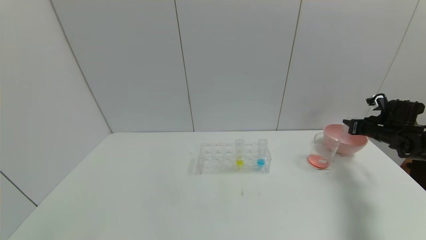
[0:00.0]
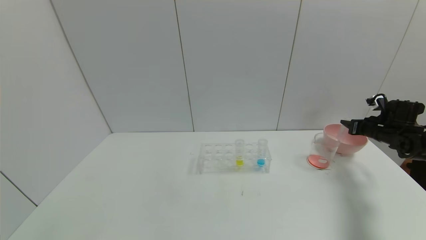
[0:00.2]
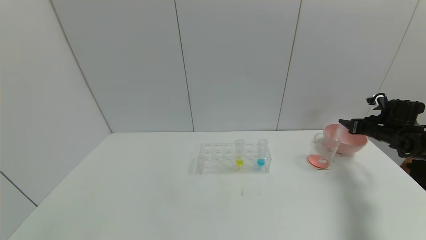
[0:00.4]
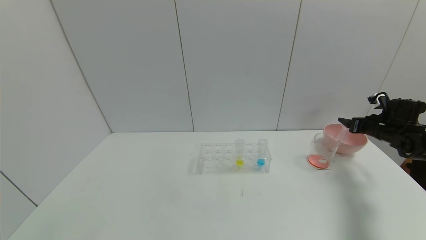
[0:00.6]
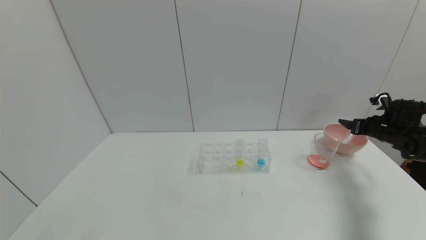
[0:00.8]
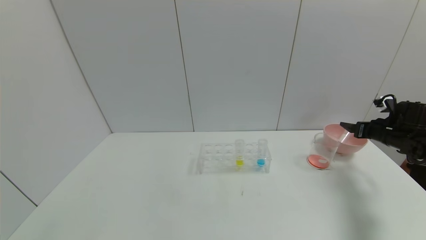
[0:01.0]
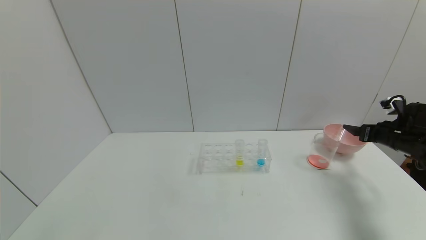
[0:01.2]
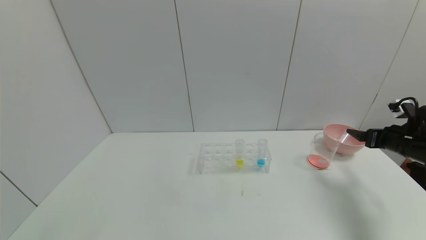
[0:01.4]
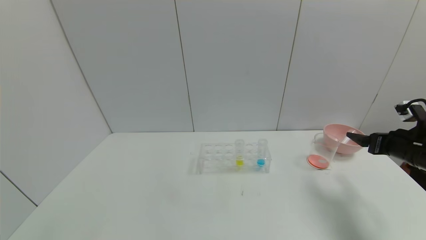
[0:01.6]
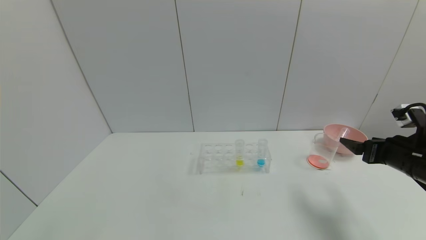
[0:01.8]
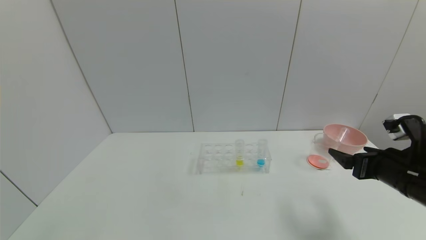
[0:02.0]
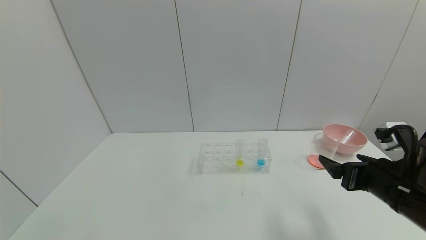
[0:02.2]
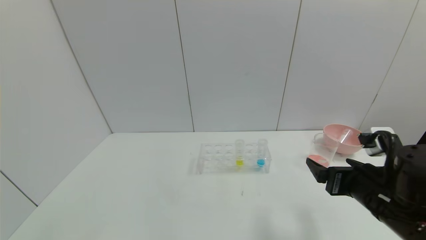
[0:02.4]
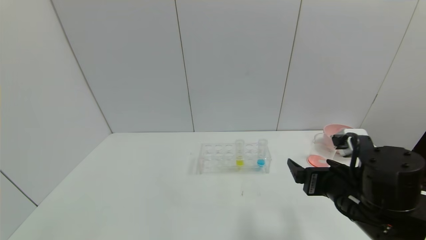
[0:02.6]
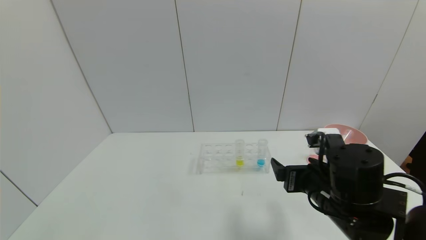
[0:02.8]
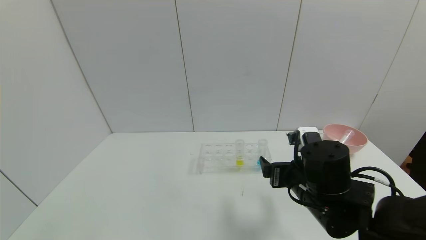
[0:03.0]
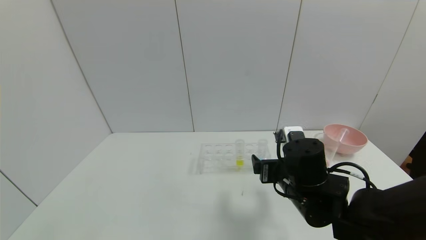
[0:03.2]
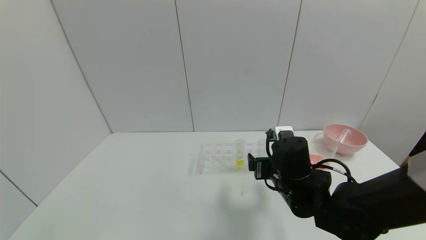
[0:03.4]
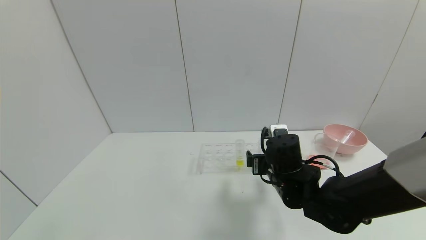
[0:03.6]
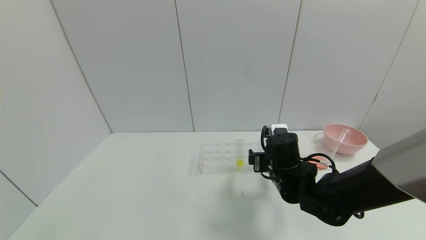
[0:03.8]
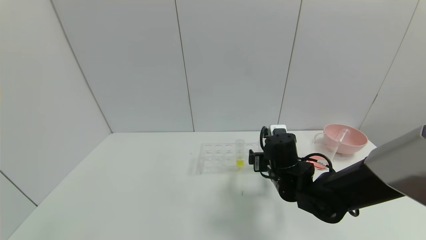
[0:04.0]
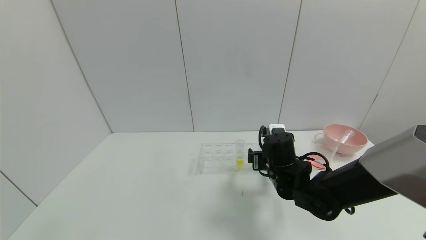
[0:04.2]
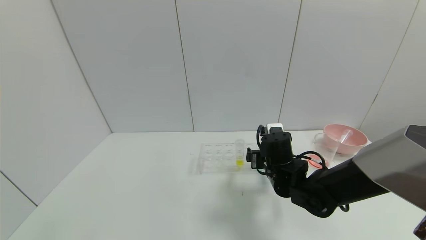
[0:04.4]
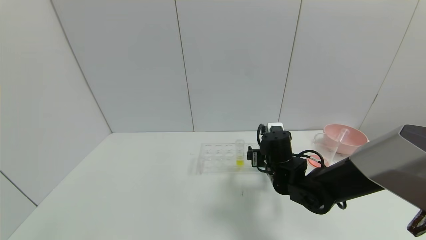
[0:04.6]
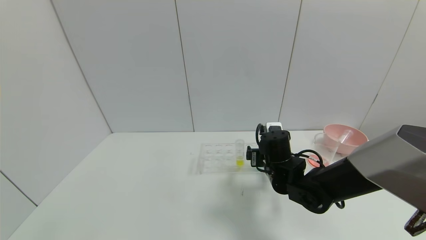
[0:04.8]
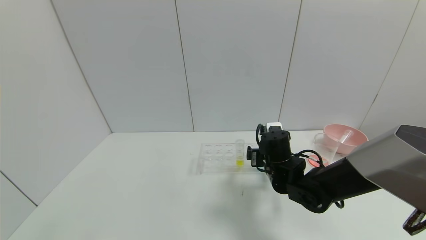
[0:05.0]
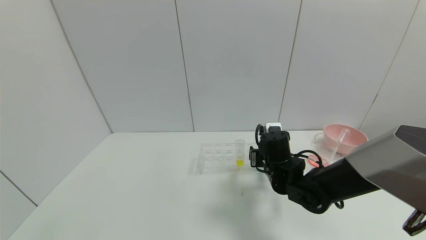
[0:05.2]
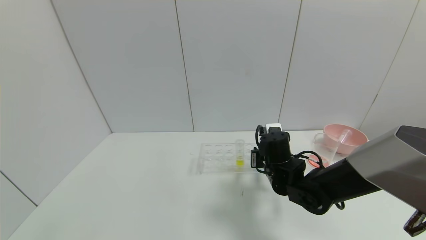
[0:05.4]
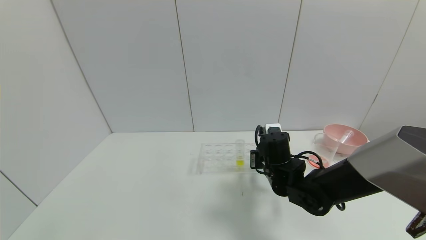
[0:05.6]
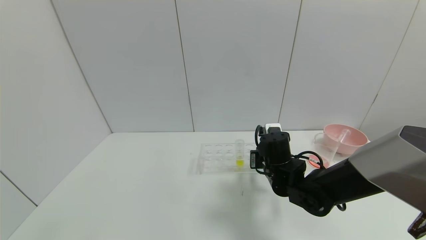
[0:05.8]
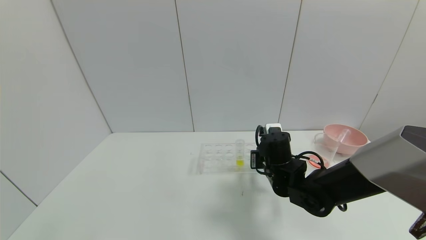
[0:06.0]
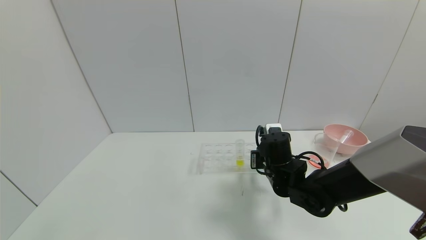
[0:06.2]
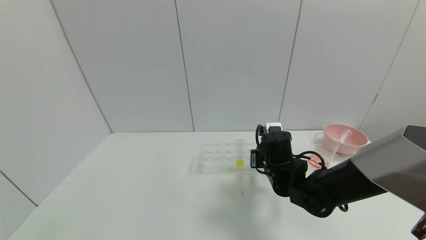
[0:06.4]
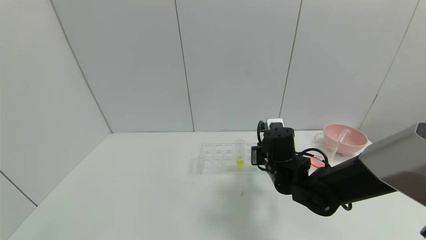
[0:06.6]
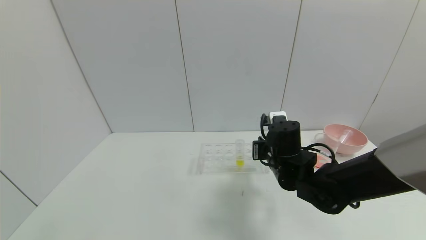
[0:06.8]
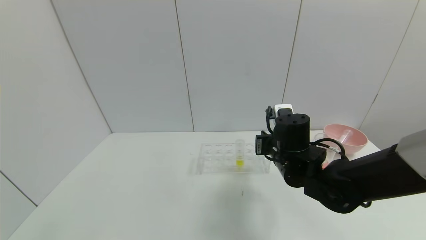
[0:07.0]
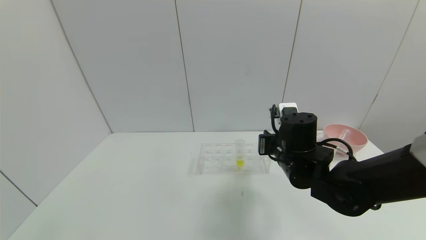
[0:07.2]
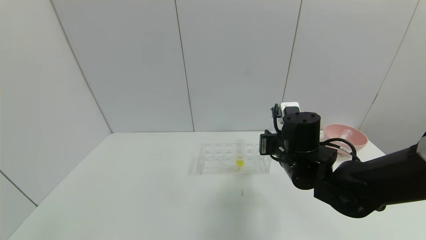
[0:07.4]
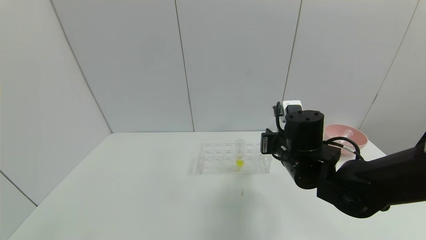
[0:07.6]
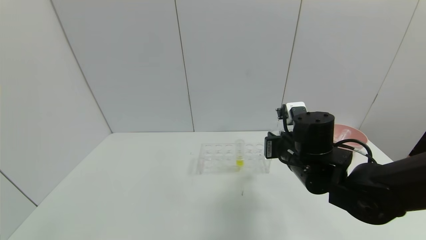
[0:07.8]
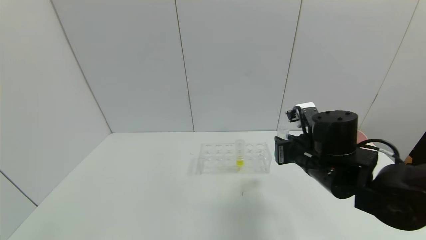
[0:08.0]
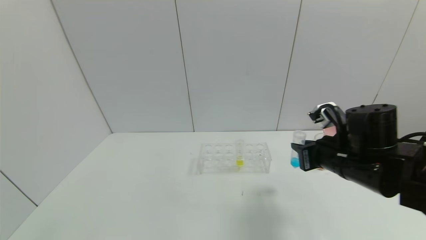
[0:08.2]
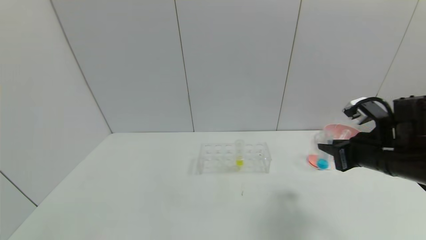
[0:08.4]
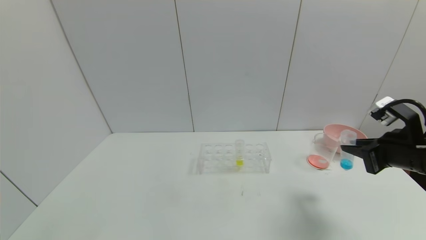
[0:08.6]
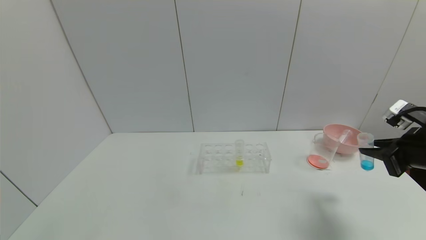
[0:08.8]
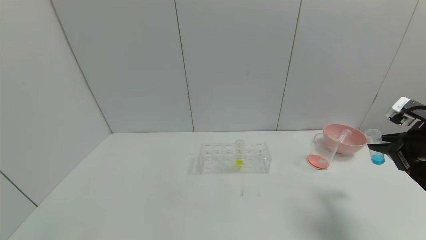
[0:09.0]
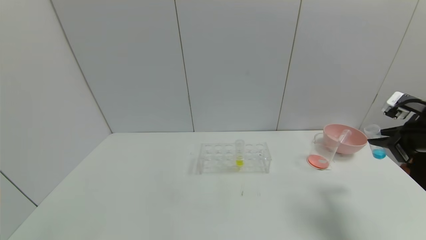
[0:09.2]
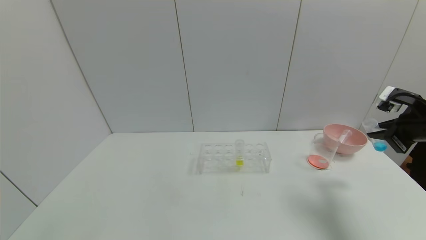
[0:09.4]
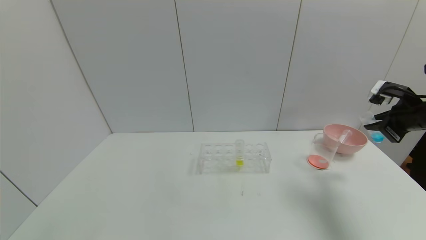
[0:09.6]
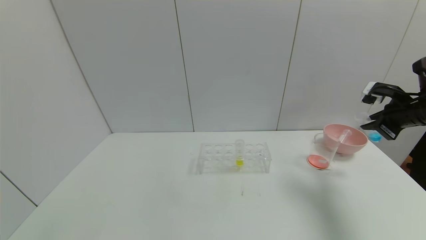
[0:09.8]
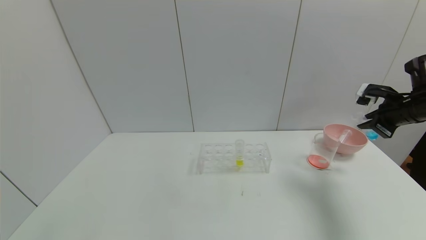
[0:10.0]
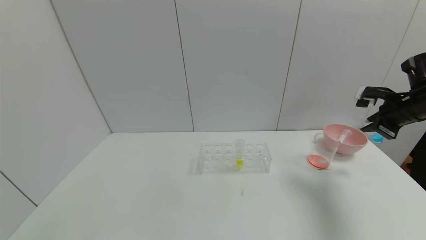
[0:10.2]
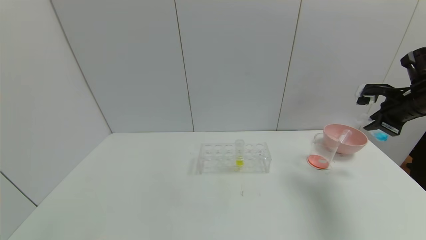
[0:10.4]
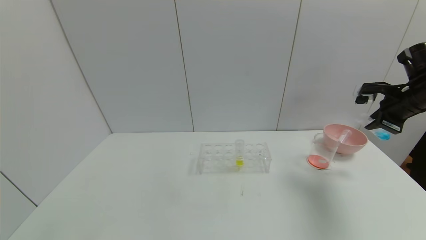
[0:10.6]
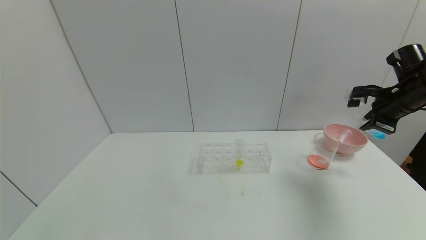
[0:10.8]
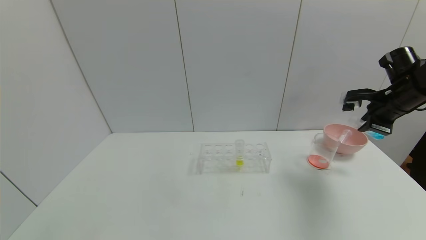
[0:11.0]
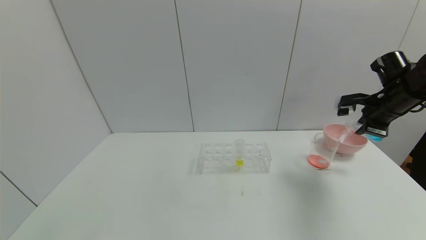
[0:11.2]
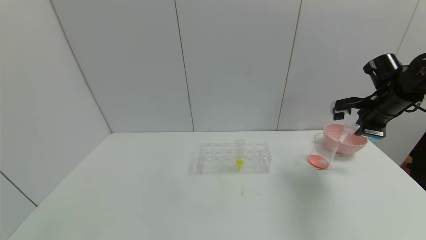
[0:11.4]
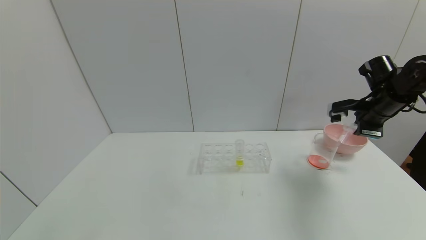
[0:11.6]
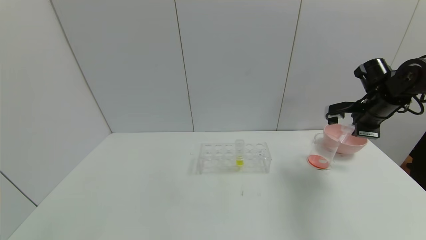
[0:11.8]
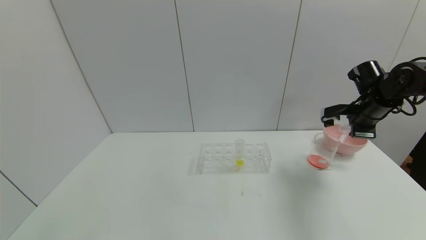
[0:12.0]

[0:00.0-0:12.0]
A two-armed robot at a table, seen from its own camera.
Task of the whole recording: pick up the test tube with red pigment and the test tube with blue pigment by grippers and pour them into the container.
Step, 0:00.8 to 0:05.8: Grasp the blue reagent with the right gripper.
0:00.0 to 0:01.6: The right gripper shifts approximately 15 cm backward and to the left, and opens.
0:01.6 to 0:03.0: The right gripper shifts about 25 cm to the left.
0:03.0 to 0:04.4: The right gripper travels forward by approximately 10 cm.
0:04.4 to 0:06.0: The right gripper closes its fingers.
0:06.0 to 0:07.6: The right gripper travels upward by about 5 cm.
0:07.6 to 0:09.0: The right gripper is displaced to the right by some 25 cm.
0:09.0 to 0:10.4: The right gripper heads forward, covering roughly 10 cm.
0:10.4 to 0:12.0: The right gripper goes some 5 cm to the left.

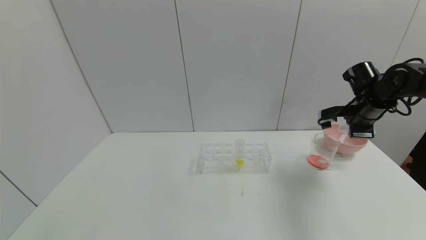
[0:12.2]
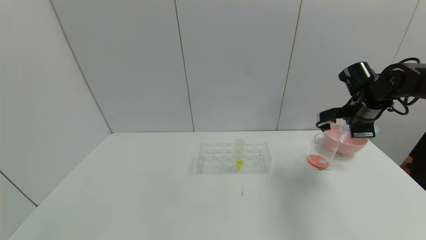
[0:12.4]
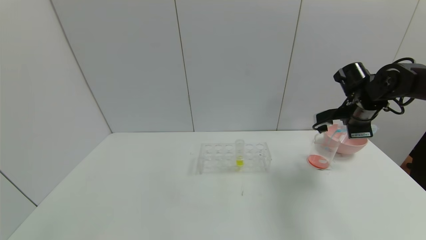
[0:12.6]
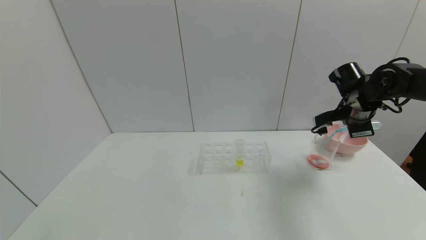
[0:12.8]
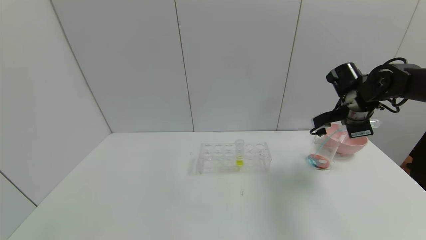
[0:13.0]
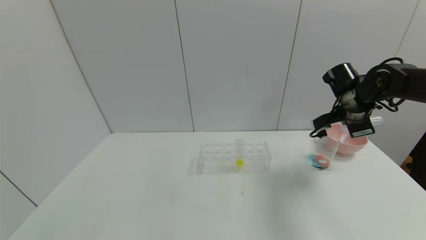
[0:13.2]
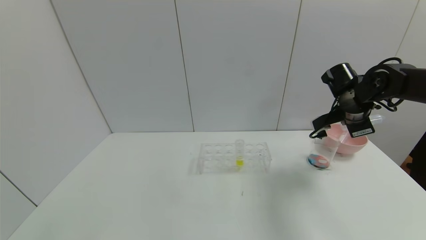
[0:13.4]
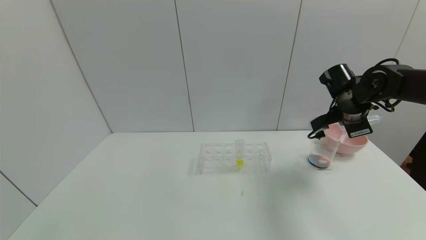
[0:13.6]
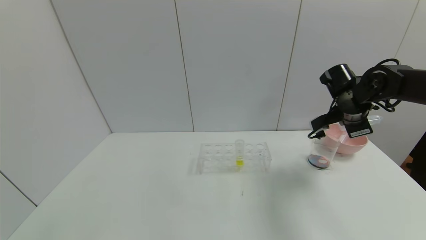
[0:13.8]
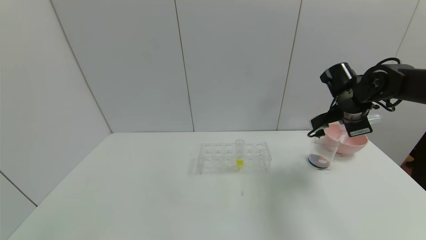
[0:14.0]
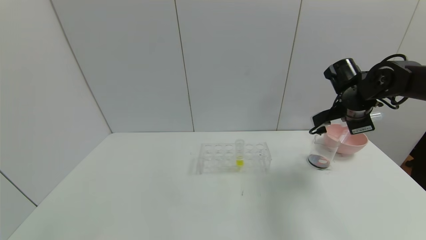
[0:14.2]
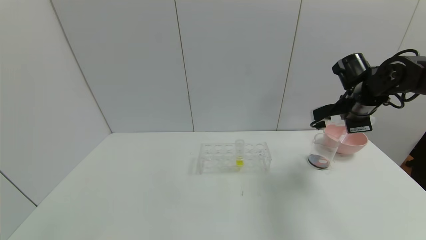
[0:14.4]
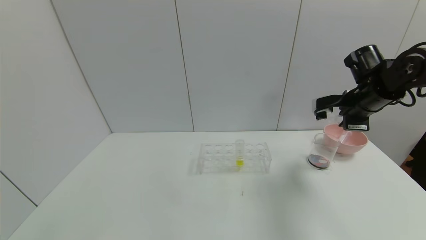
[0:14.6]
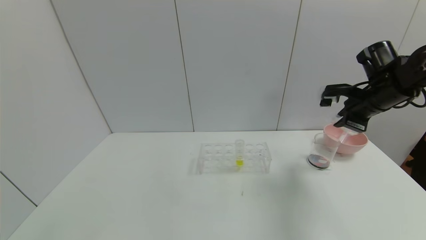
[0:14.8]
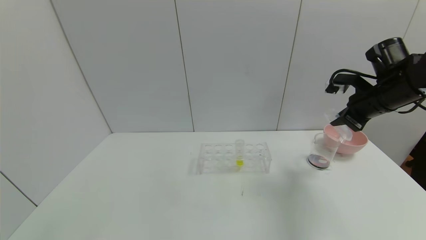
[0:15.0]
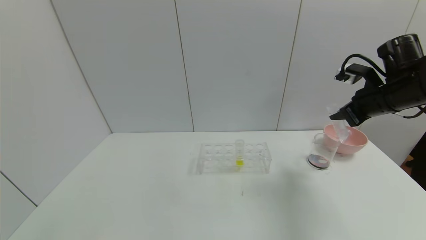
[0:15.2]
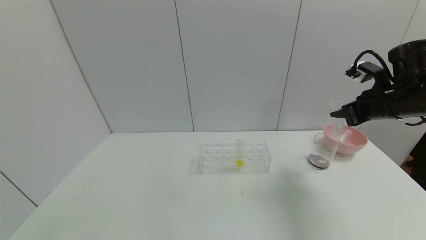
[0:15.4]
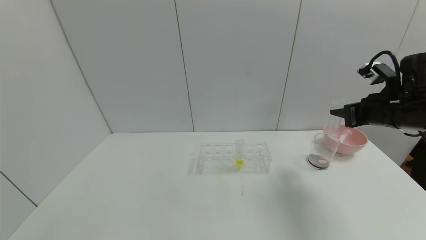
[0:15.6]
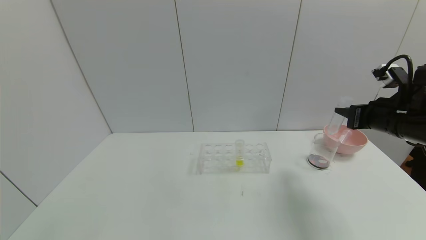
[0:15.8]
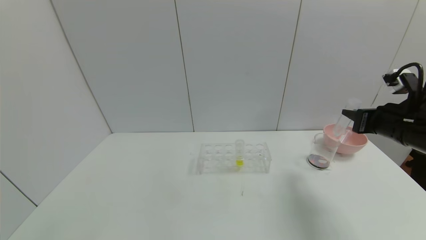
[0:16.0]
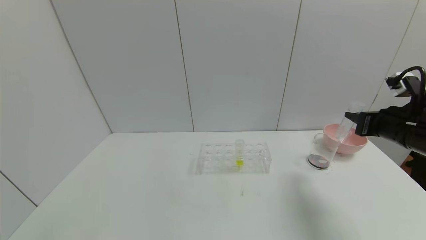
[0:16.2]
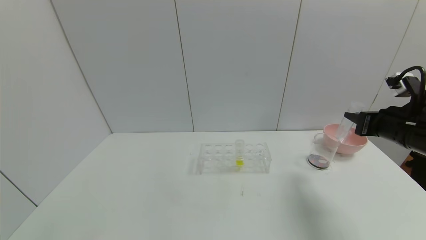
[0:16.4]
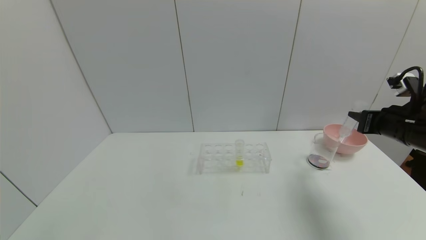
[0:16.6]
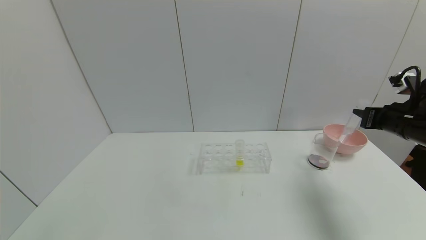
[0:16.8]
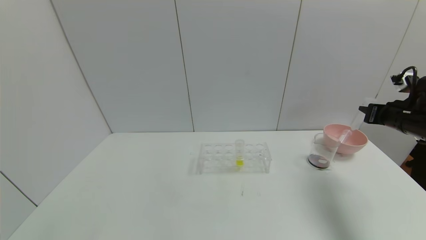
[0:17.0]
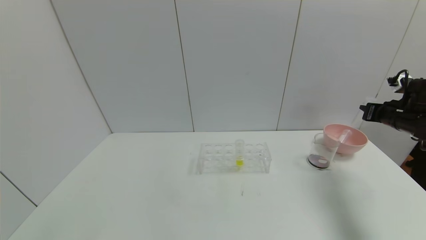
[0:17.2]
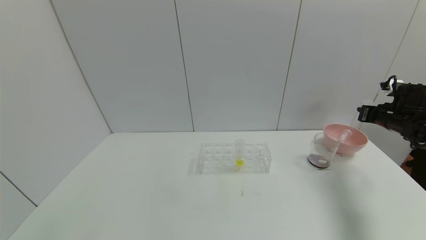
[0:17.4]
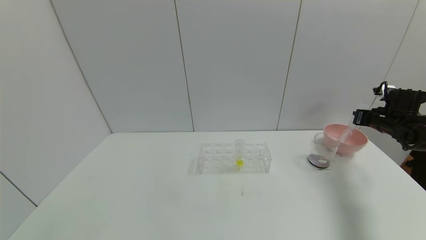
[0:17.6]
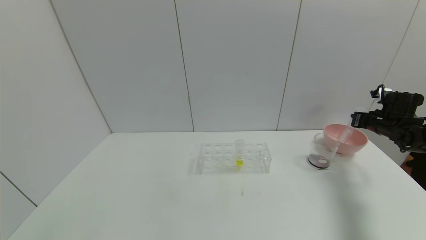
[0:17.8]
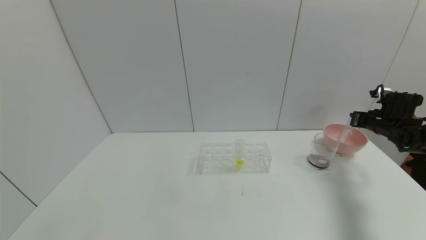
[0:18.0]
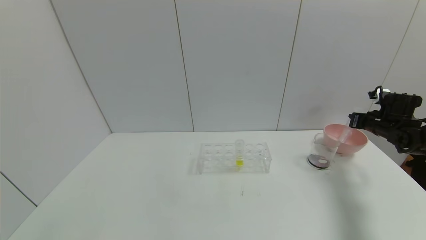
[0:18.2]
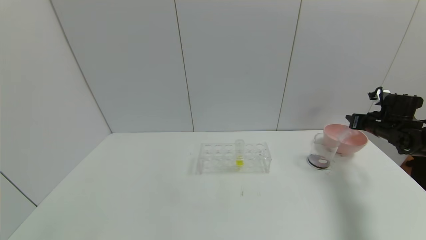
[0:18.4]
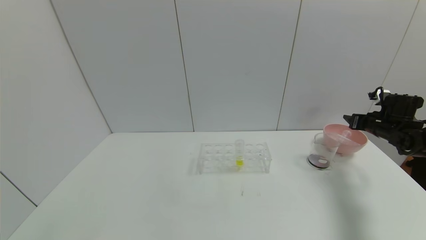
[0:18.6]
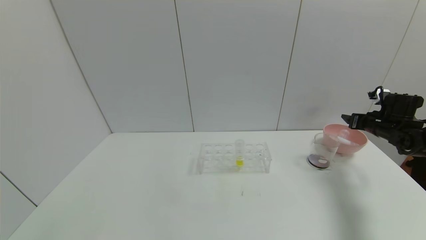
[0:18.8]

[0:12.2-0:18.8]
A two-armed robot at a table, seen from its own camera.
Task of the whole recording: pick up the test tube with red pigment and the test tube with blue pigment by grippers and pour them into the container.
Step, 0:13.8 to 0:18.4: Place the test tube into the bowl with the right gripper.
0:13.8 to 0:15.4: The right gripper is displaced backward by some 5 cm.
0:15.4 to 0:17.2: The right gripper travels to the right, downward and forward by some 15 cm.
0:17.2 to 0:18.8: The right gripper moves roughly 5 cm, and opens its fingers.
